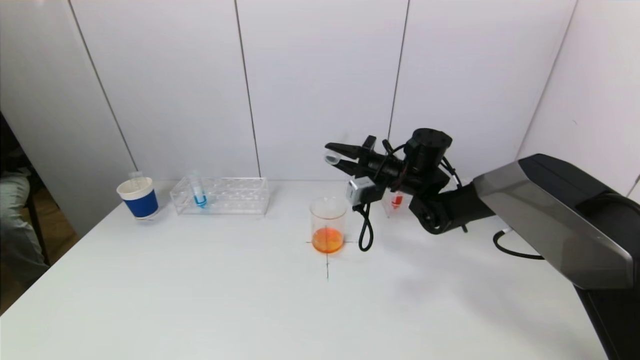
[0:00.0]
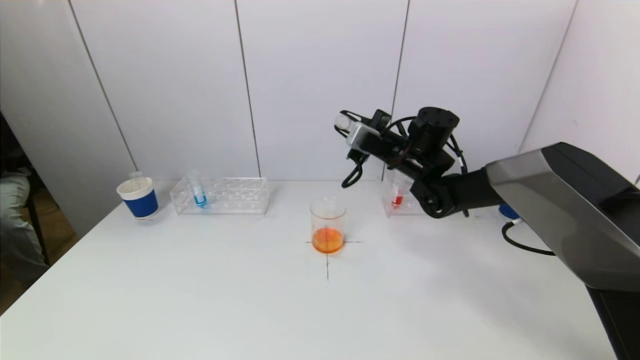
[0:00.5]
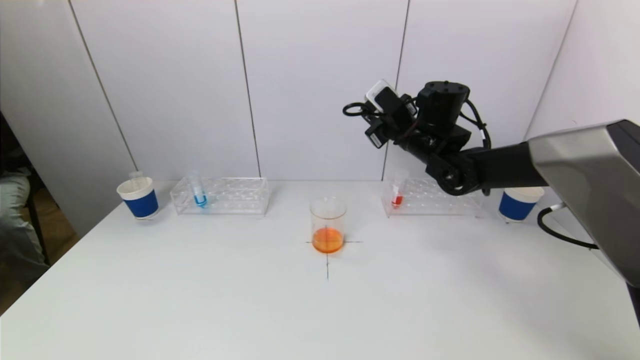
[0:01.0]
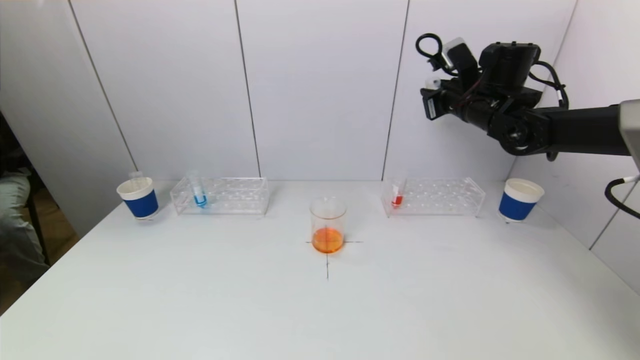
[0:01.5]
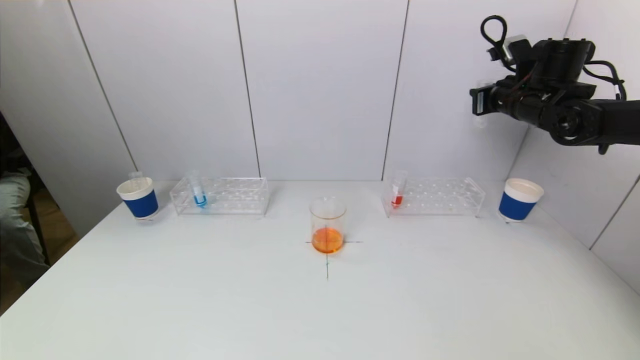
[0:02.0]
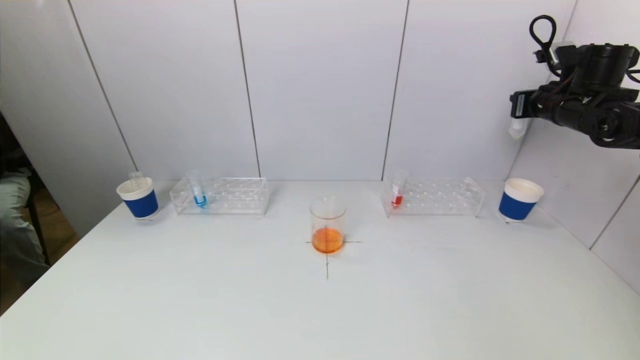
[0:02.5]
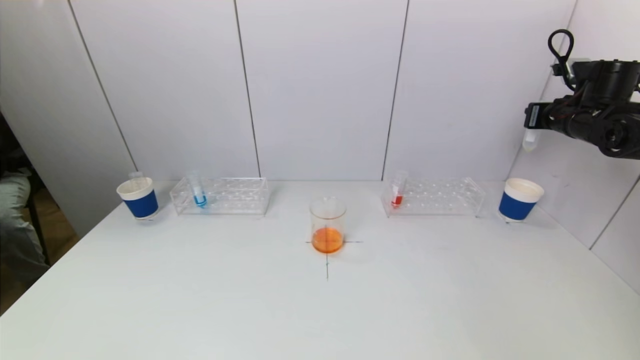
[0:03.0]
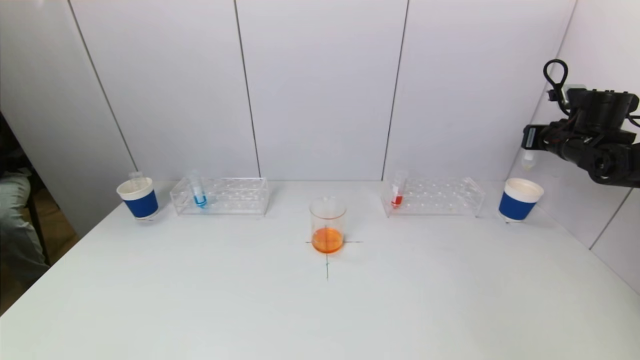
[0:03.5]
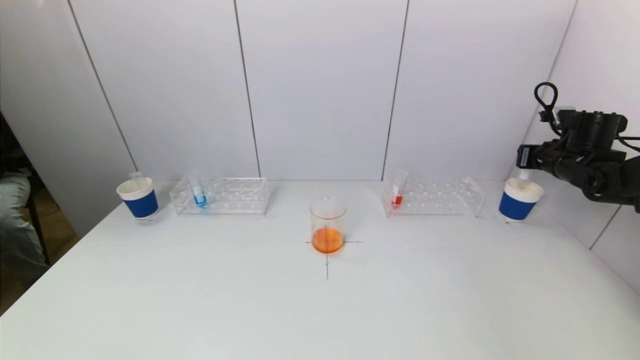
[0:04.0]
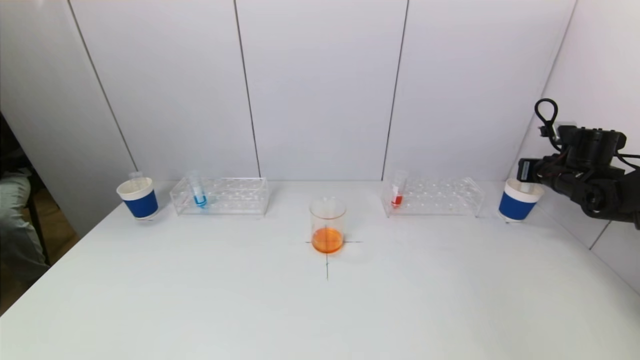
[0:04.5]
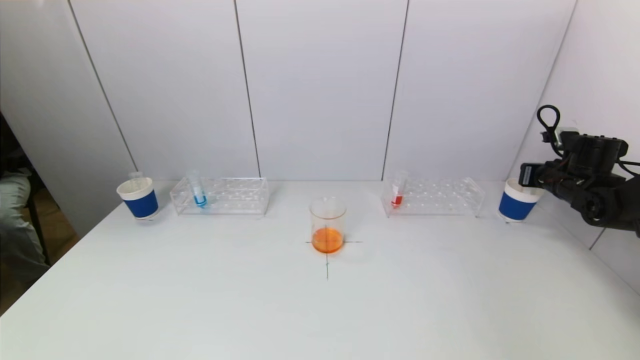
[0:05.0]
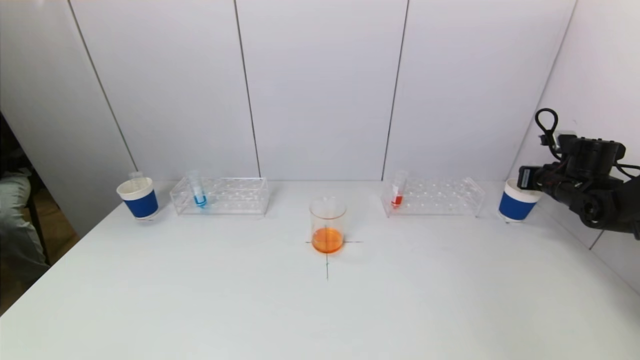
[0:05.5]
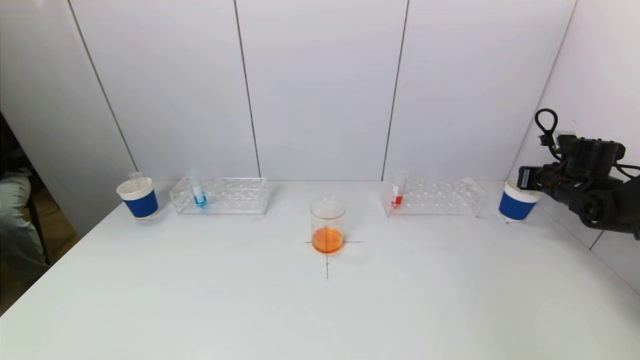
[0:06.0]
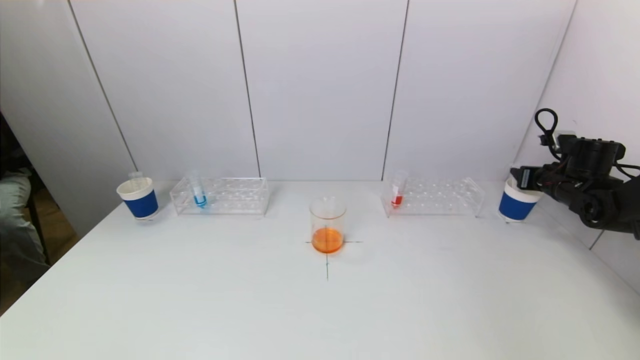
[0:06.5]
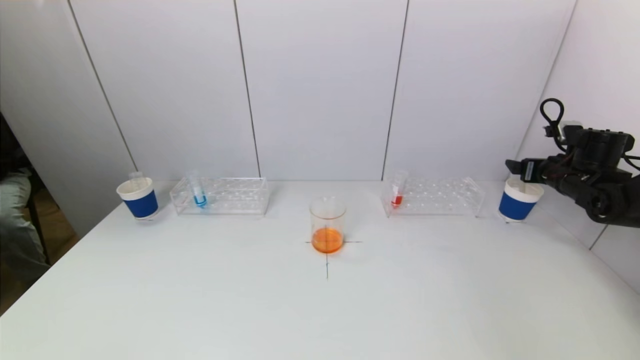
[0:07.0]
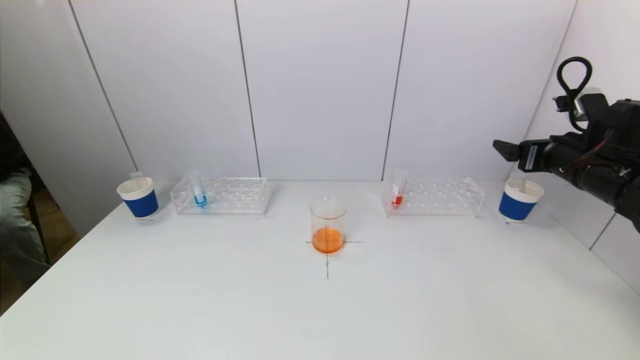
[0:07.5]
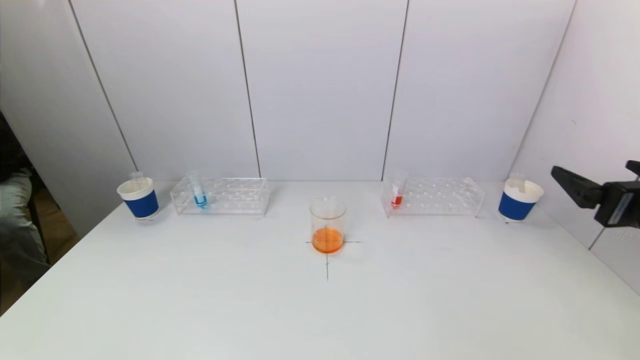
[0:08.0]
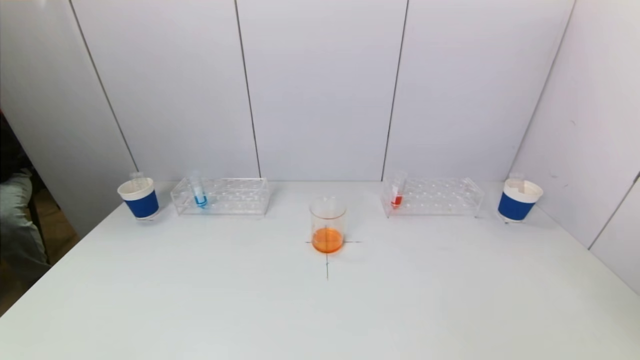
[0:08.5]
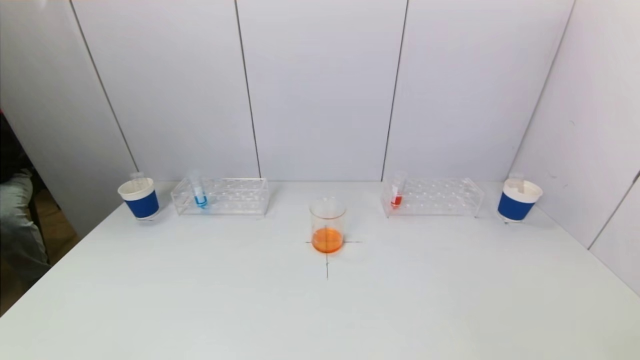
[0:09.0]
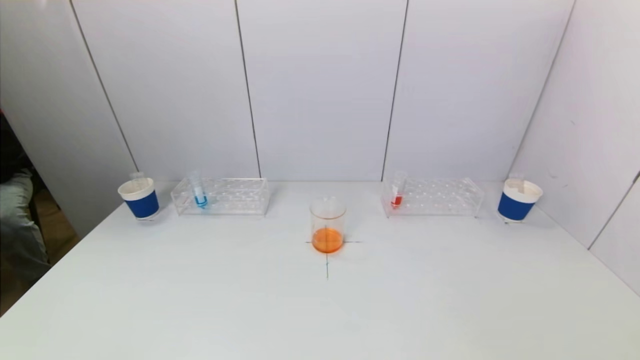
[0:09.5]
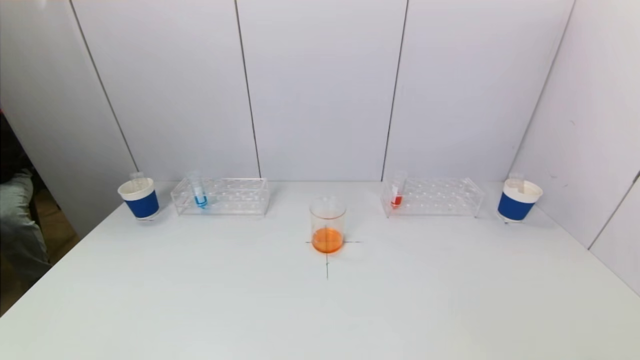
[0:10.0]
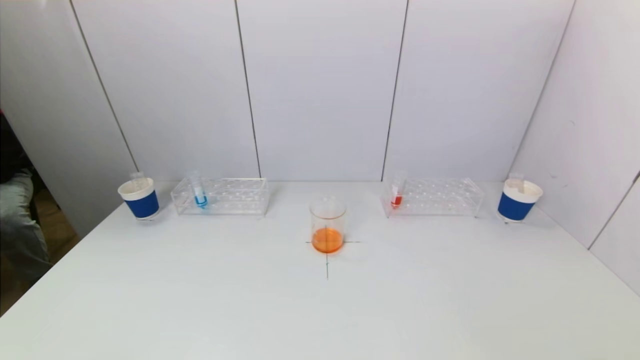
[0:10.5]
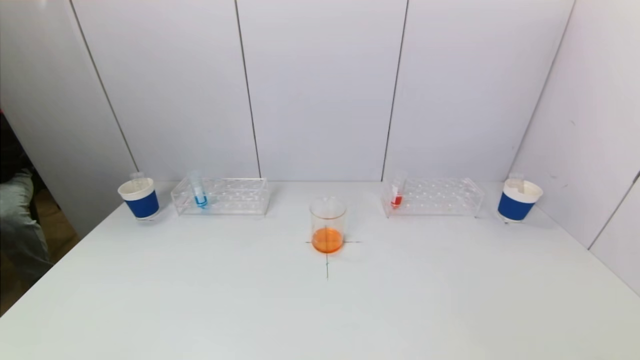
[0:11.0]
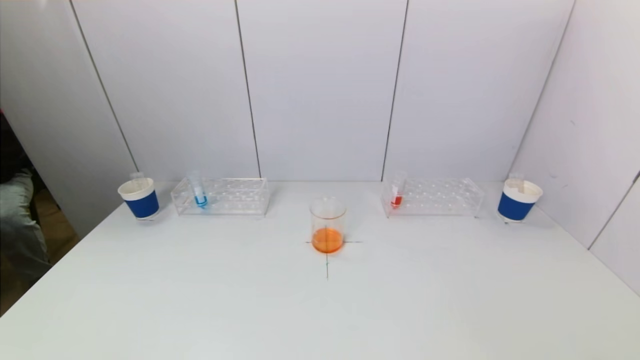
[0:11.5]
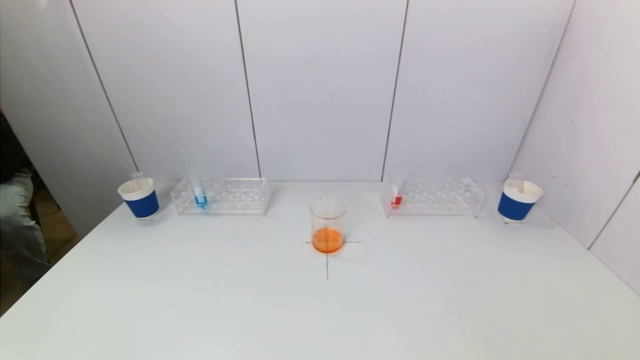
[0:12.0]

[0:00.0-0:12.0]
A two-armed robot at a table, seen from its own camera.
Task of the whole recording: pick up a test tube with pigment on left test tube rack and a test tube with pigment on right test tube rack by grippers and pour them into the beaker.
Step, 0:00.0 to 0:07.0: Place the test tube into the paper cup with the right gripper.
0:00.0 to 0:02.0: The right gripper moves to the right and upward, about 25 cm.
0:02.0 to 0:04.0: The right gripper travels downward and to the right by about 15 cm.
0:04.0 to 0:06.0: The grippers make only small movements.
0:06.0 to 0:08.0: The right gripper shifts approximately 30 cm backward, to the left and upward, and opens its fingers.
0:08.0 to 0:10.0: The right gripper is displaced backward and downward by approximately 25 cm.
0:10.0 to 0:12.0: Both grippers stay about where they are.
